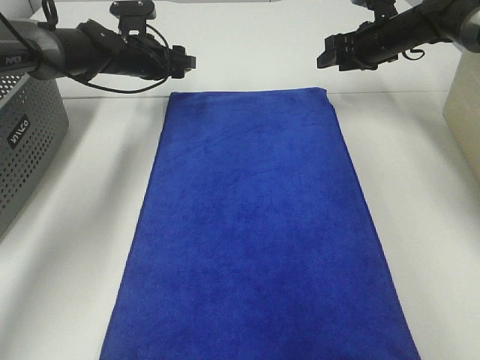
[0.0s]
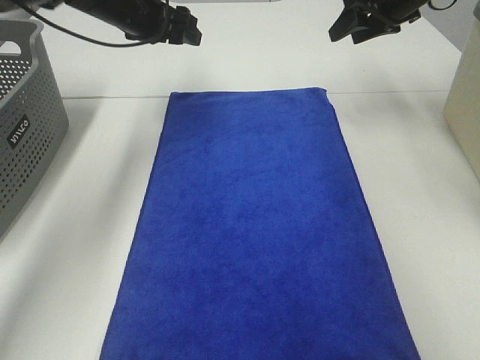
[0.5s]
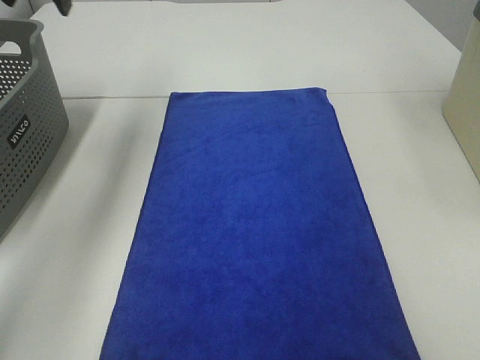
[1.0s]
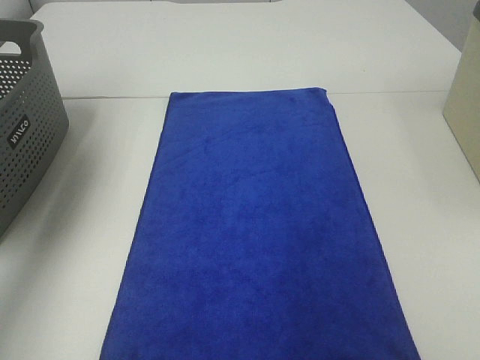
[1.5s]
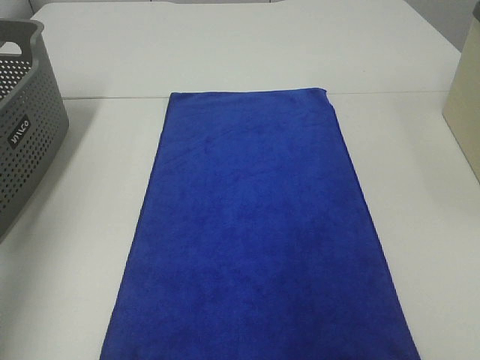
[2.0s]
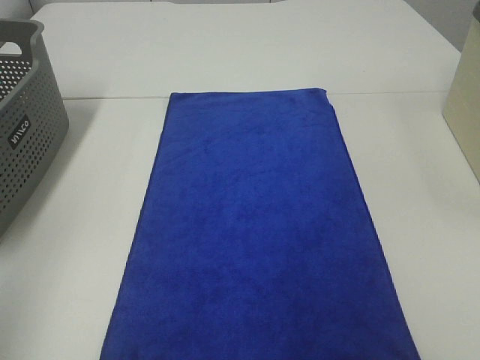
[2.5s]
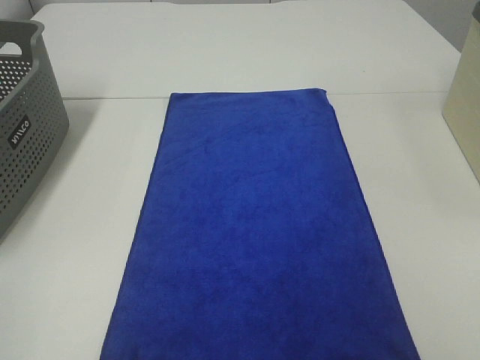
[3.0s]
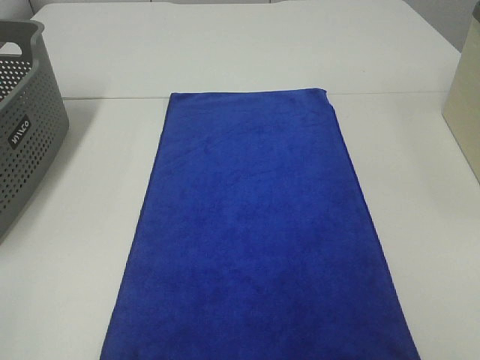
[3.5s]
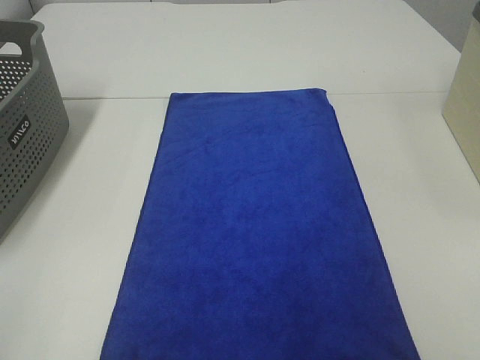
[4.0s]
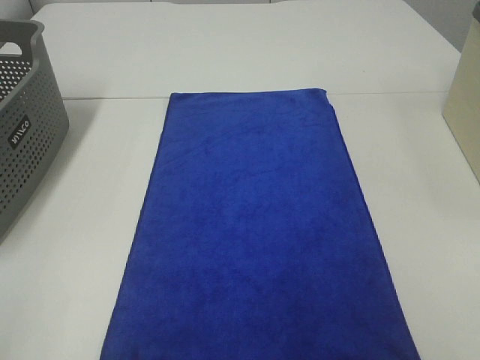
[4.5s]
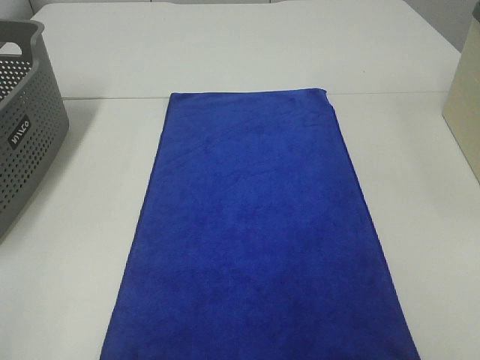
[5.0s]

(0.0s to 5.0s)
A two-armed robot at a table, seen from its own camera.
Task of the whole recording: Remove the towel and place it.
0.0s - 2.5s: The right gripper goes roughly 50 cm backward, while the left gripper travels backward and upward by some 50 cm.
2.5s - 5.0s: The left gripper moves backward and downward, roughly 15 cm.

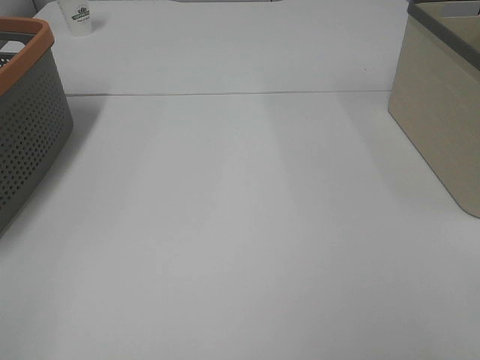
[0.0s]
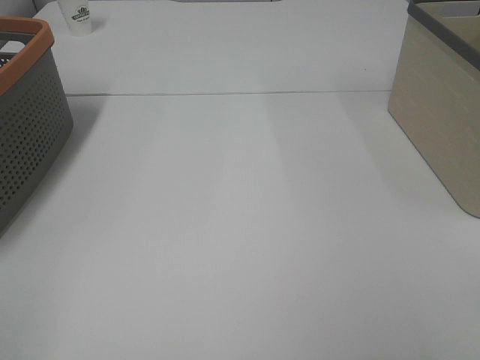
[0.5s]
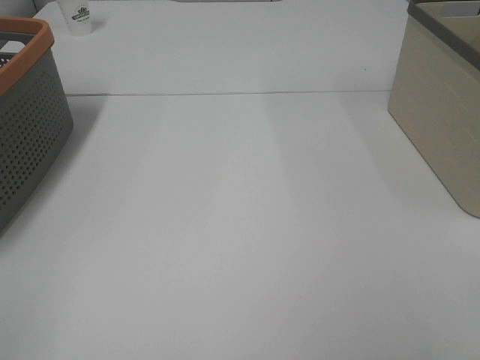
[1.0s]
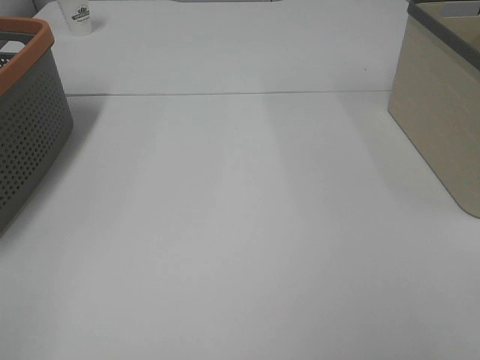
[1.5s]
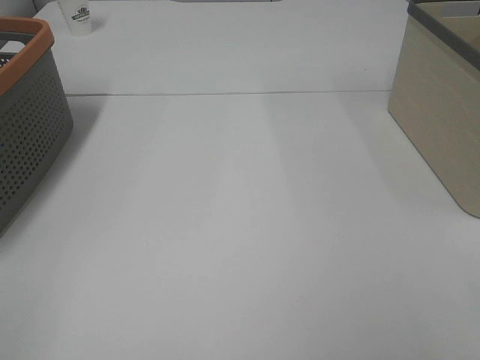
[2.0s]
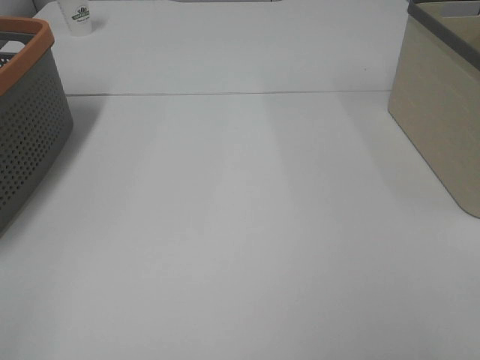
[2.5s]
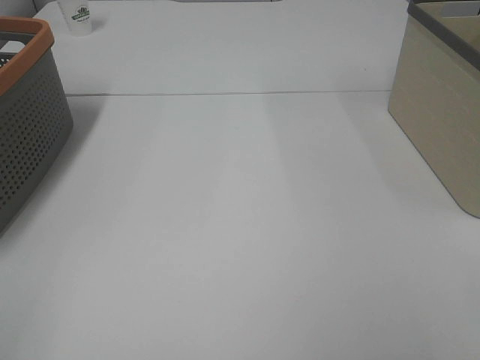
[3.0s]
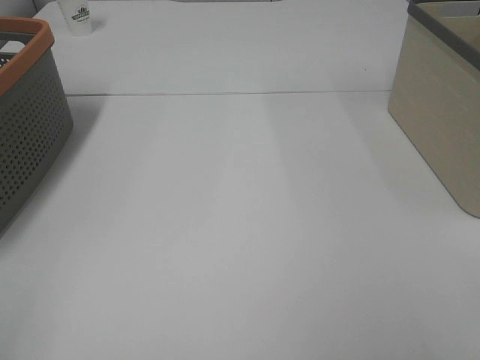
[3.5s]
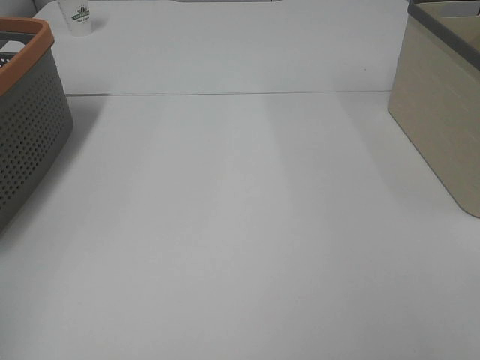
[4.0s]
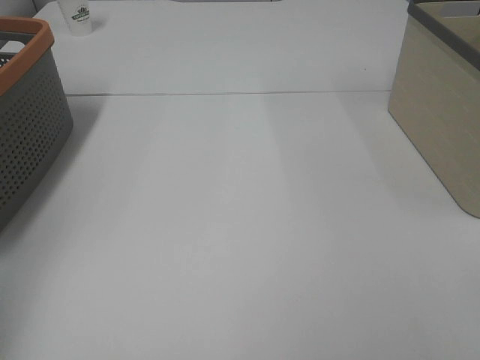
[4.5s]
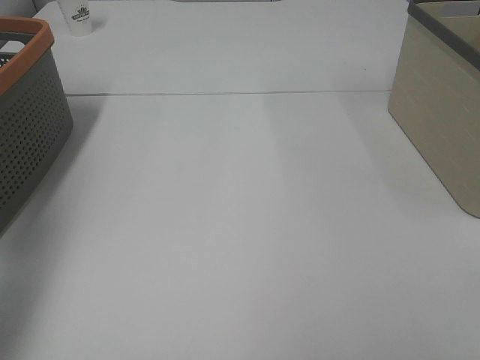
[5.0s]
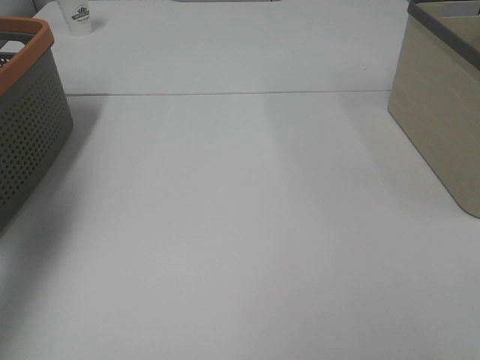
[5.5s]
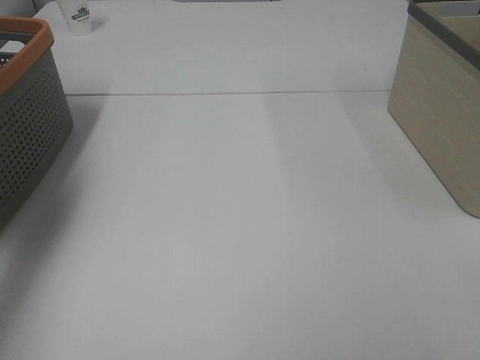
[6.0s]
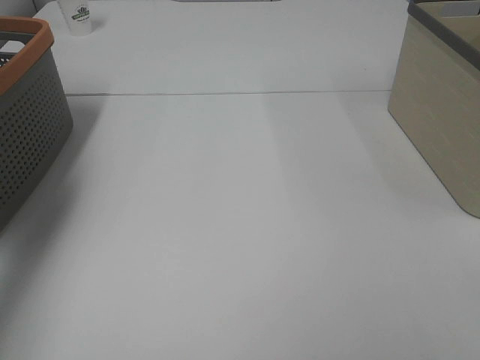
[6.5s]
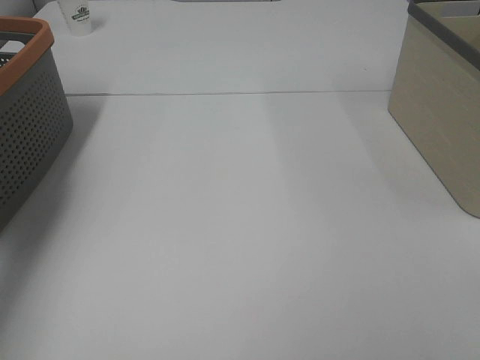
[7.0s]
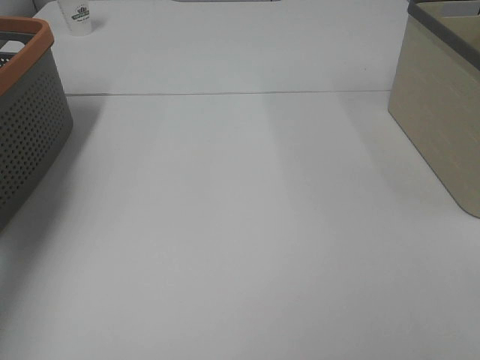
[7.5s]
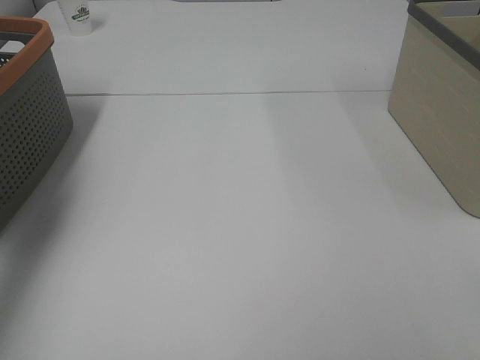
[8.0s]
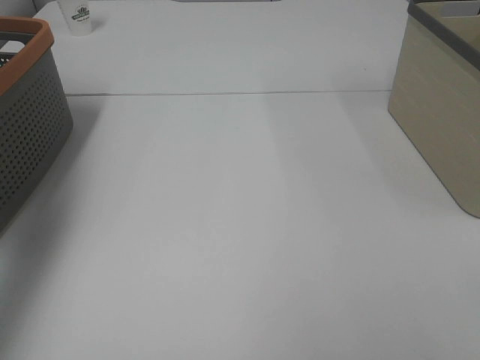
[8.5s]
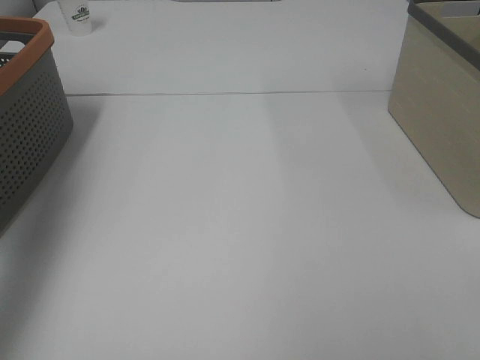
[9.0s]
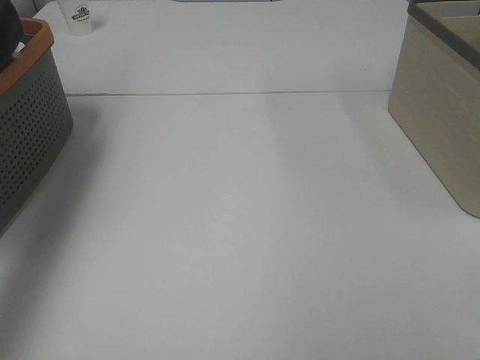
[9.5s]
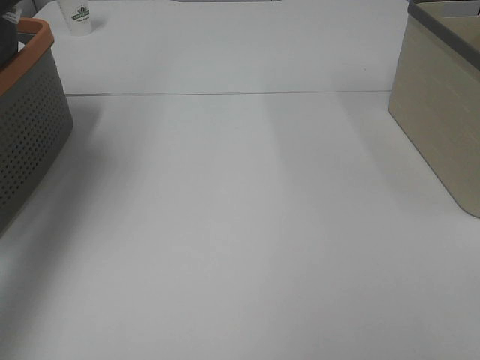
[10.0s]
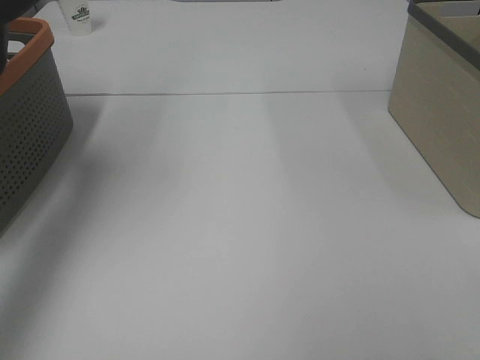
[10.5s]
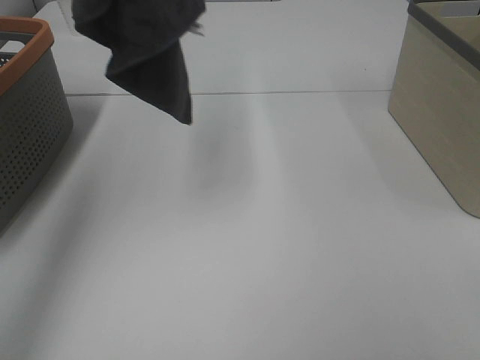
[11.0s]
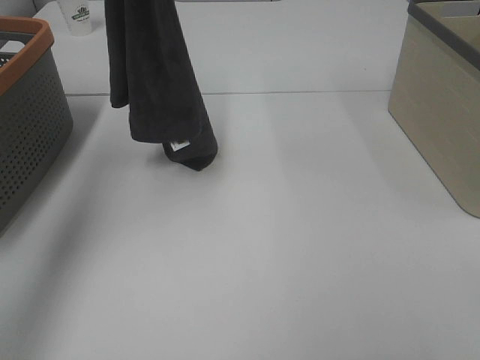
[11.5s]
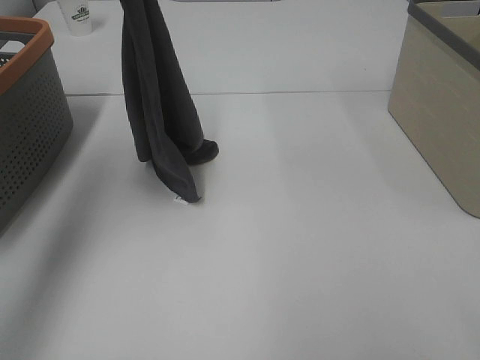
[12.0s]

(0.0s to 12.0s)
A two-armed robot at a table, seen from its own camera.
Task of the whole recording: Remove the towel and place it.
0.0s - 2.0s: Neither gripper changes place.
4.0s - 6.0s: The left gripper moves forward, about 35 cm.
8.0s - 10.0s: The left gripper travels upward and backward by about 25 cm.
10.0s - 12.0s: The left gripper goes approximately 20 cm downward and to the right.

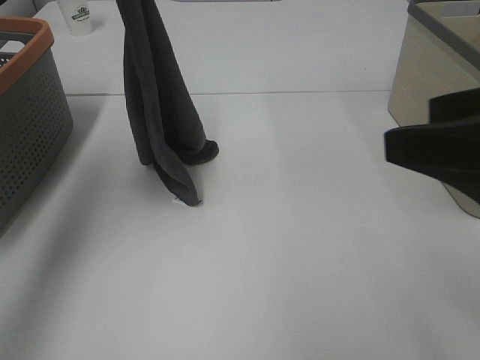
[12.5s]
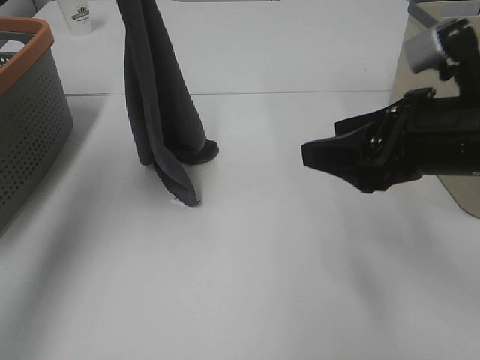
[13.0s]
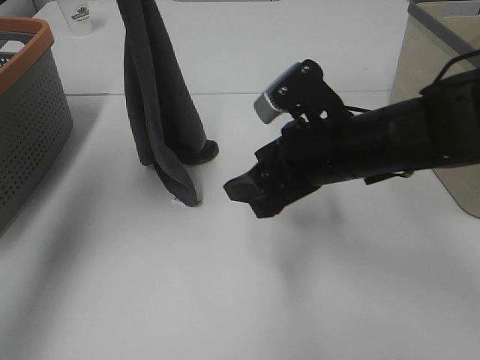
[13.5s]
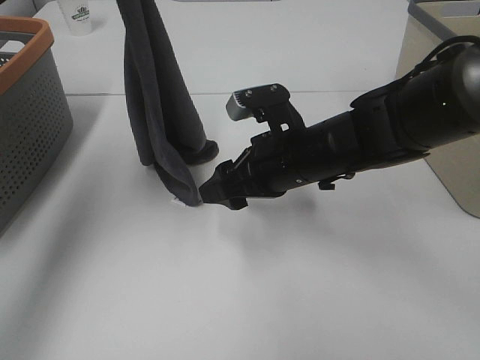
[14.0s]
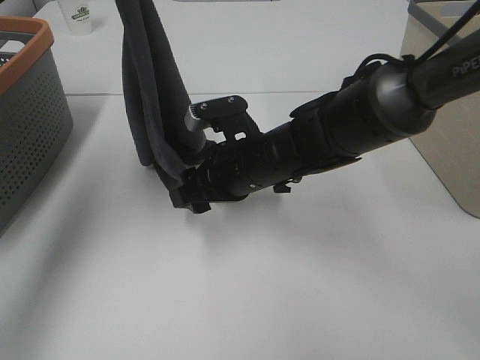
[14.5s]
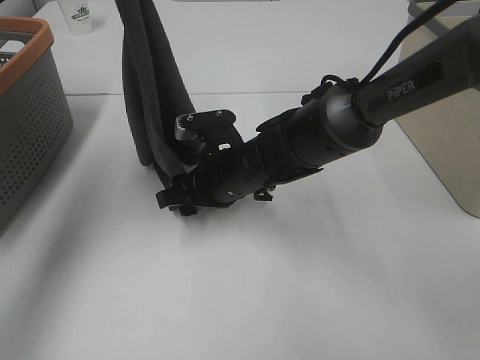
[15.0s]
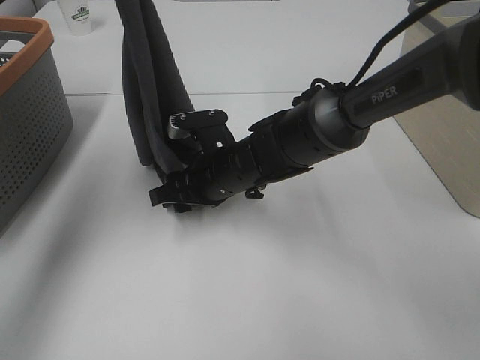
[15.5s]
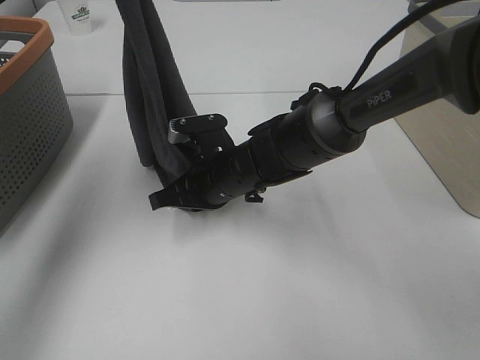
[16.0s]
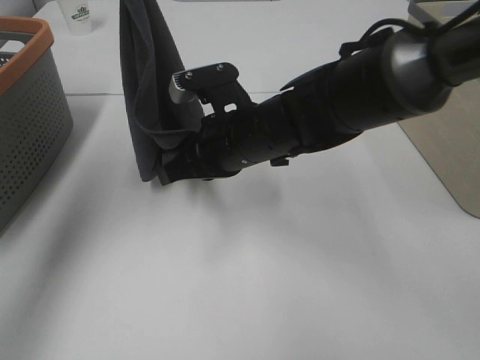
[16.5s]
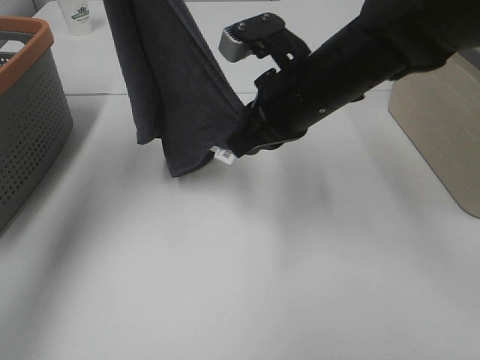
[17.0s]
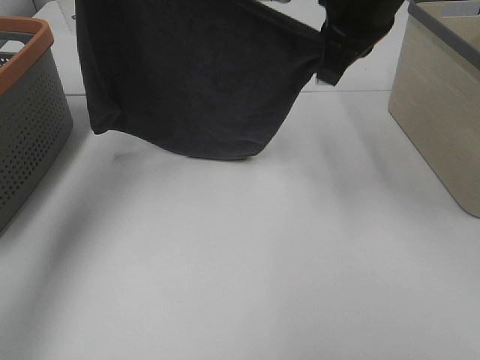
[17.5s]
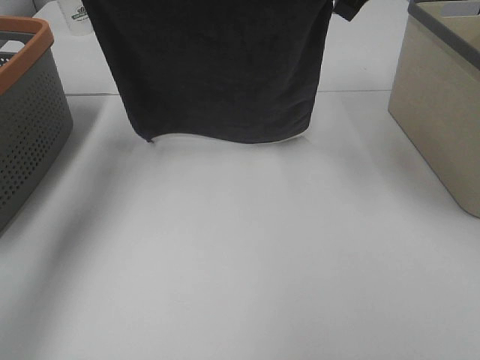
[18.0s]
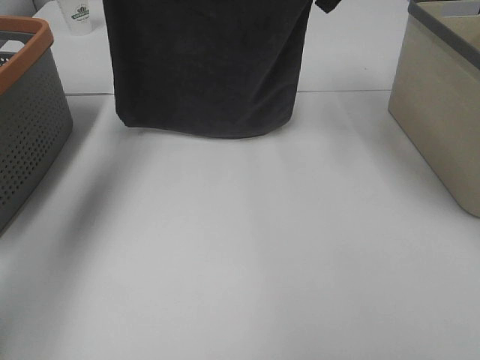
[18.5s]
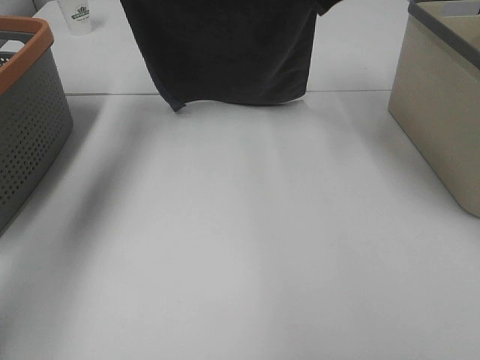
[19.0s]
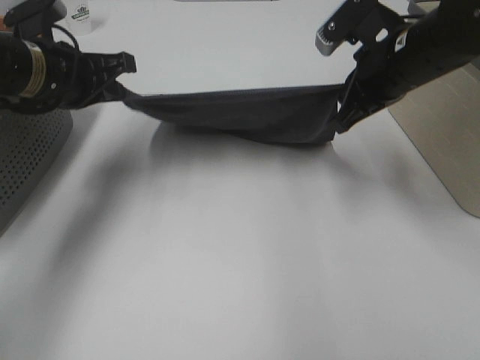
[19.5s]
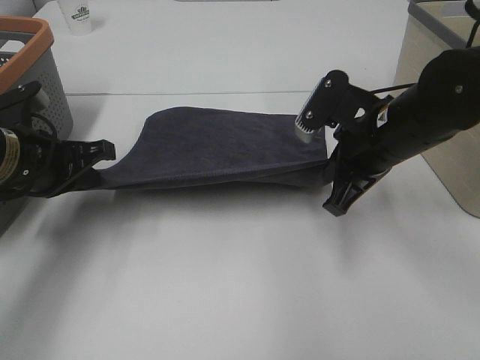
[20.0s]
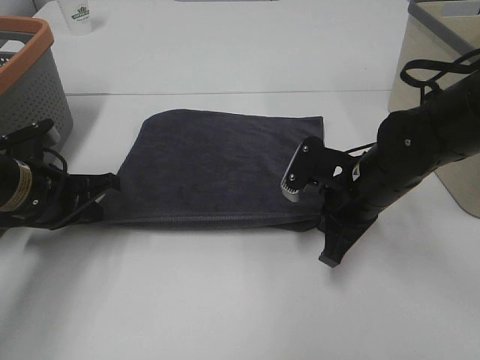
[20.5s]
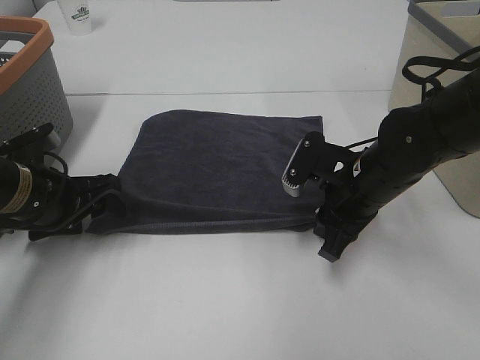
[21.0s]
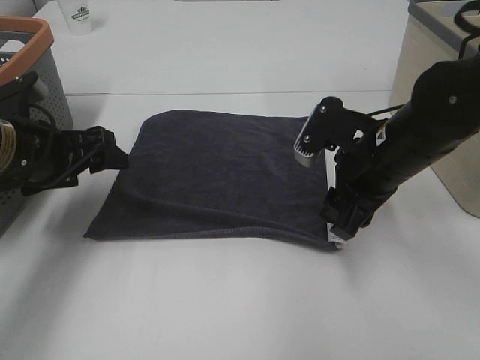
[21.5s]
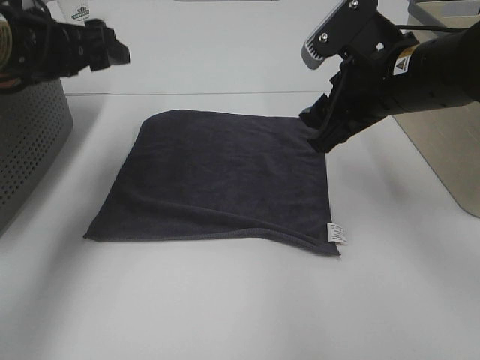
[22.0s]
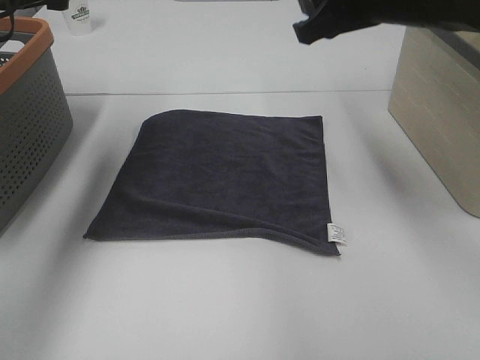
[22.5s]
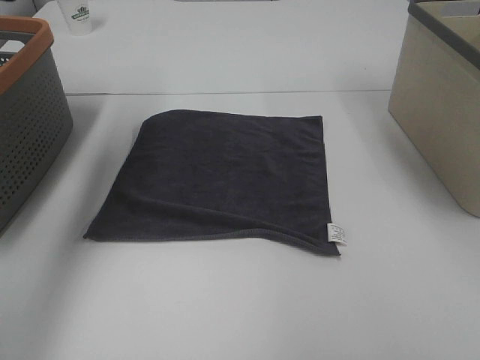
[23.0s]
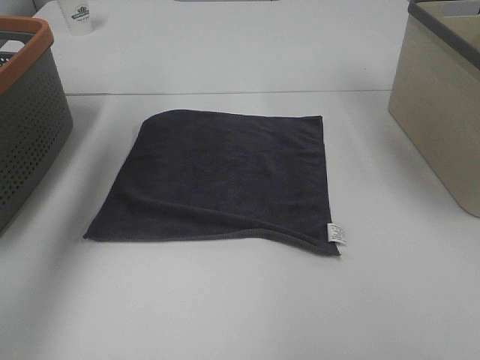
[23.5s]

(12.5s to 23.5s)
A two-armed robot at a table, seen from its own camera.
Task of the whole recording: Remove the towel and place it.
Step, 12.5s - 15.0s: Right hand: grab a corner of the grey towel and straighten it.
Step, 15.5s - 16.5s: Left hand: spread the grey towel flat on the table.
Step, 15.5s - 17.0s: Right hand: spread the grey towel flat on the table.
12.5s - 14.5s: The right gripper moves to the left, downward and forward, approximately 30 cm.
14.5s - 16.0s: The right gripper closes up.
16.0s - 18.0s: The right gripper is displaced upward and to the right by some 30 cm. The left gripper changes place by approximately 5 cm.
18.0s - 20.0s: Both grippers travel together downward and backward, roughly 20 cm.
20.0s - 21.5s: The left gripper opens its fingers; the right gripper opens up.
21.5s - 23.5s: The right gripper heads upward, covering about 25 cm; the left gripper travels upward and forward by about 20 cm.
